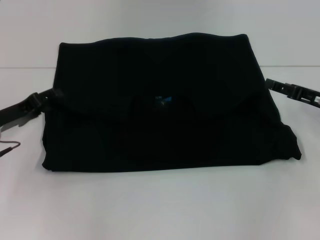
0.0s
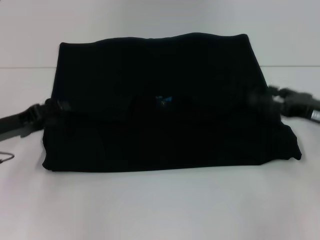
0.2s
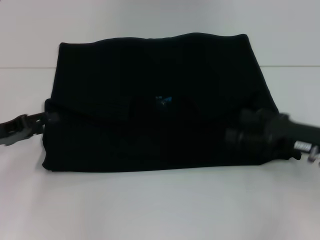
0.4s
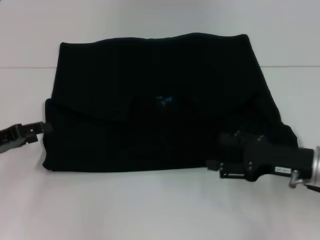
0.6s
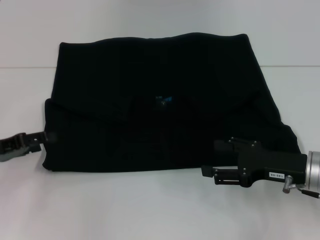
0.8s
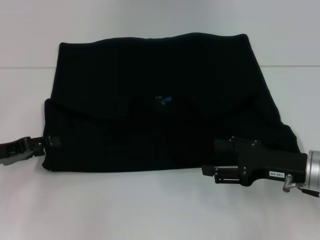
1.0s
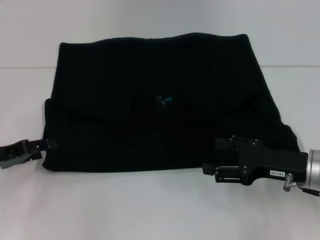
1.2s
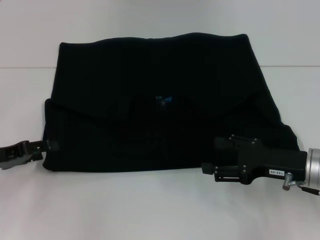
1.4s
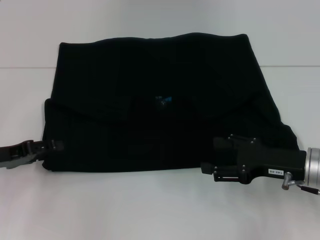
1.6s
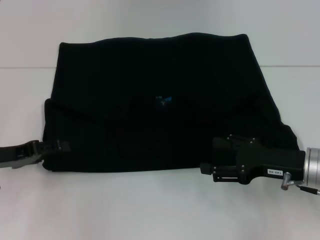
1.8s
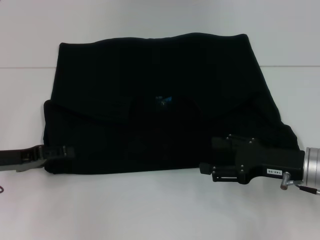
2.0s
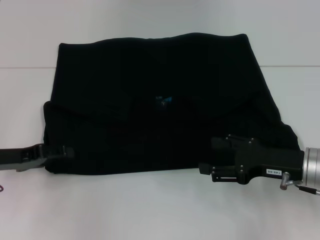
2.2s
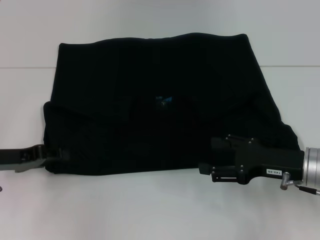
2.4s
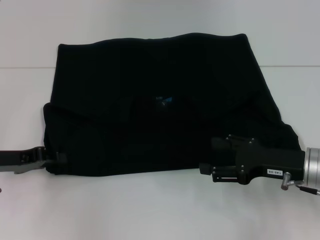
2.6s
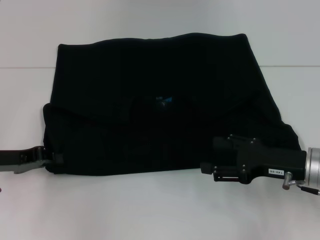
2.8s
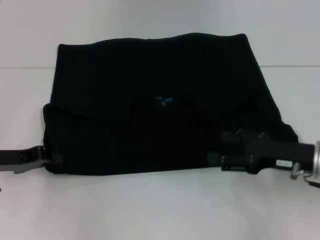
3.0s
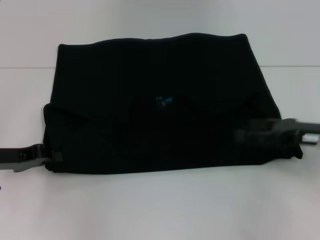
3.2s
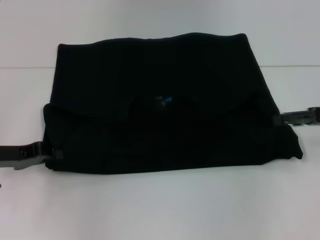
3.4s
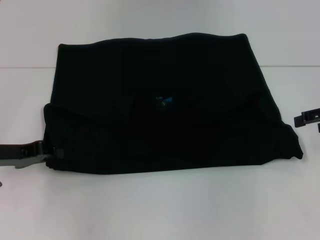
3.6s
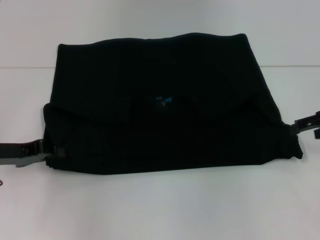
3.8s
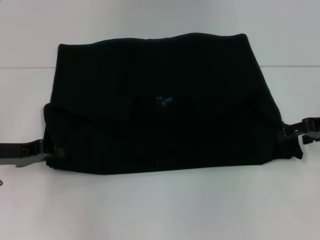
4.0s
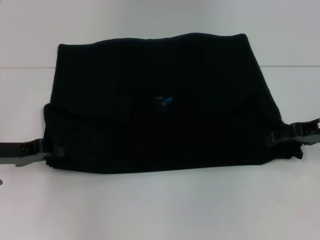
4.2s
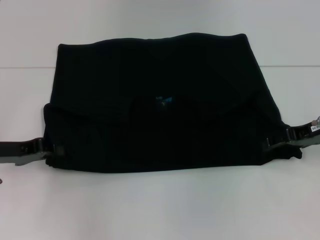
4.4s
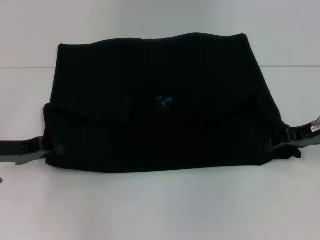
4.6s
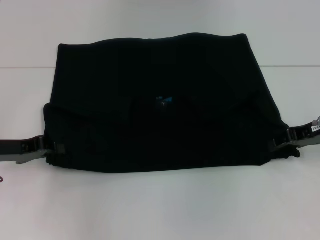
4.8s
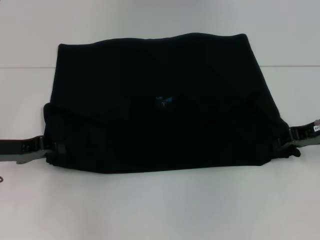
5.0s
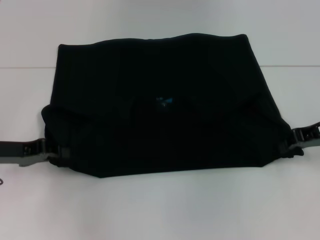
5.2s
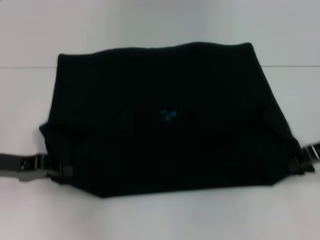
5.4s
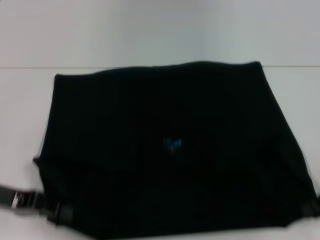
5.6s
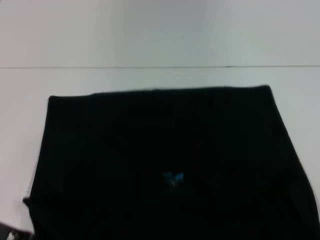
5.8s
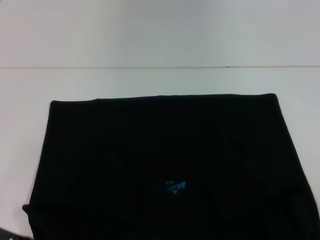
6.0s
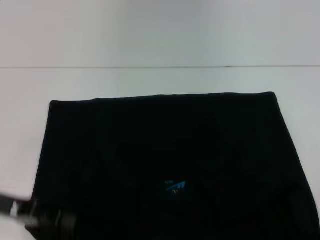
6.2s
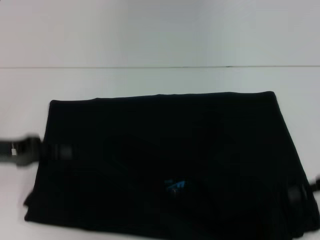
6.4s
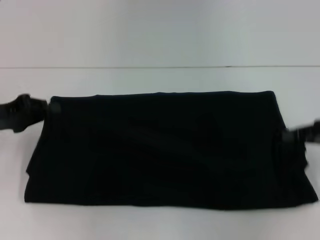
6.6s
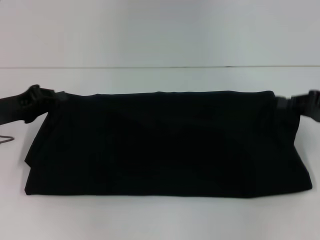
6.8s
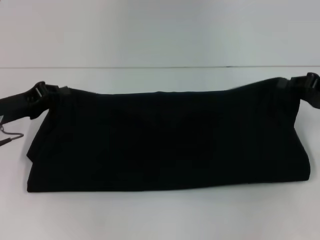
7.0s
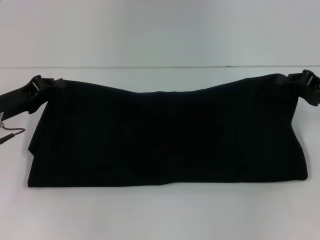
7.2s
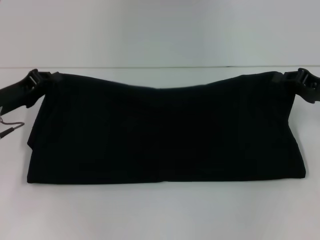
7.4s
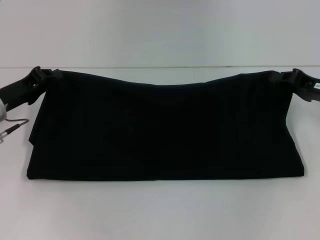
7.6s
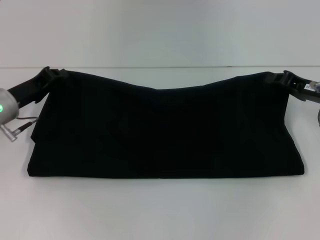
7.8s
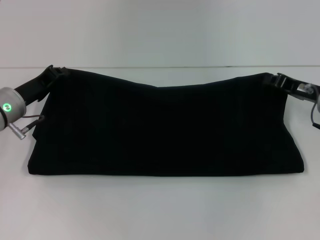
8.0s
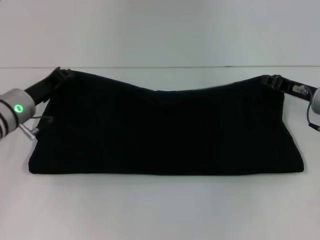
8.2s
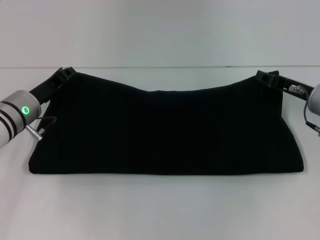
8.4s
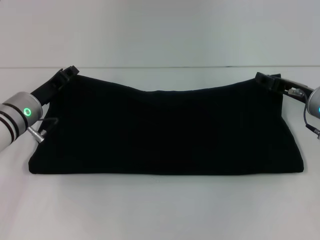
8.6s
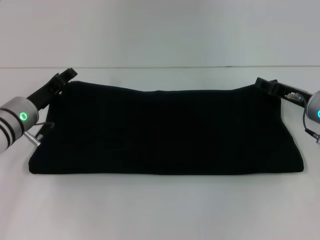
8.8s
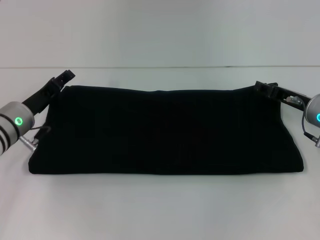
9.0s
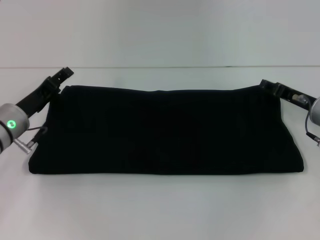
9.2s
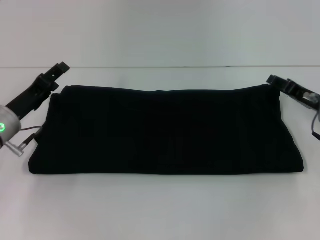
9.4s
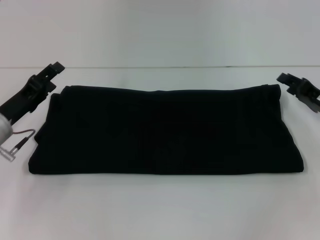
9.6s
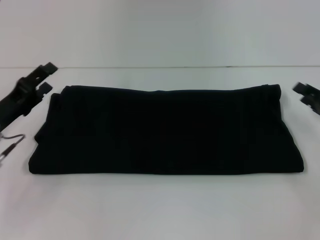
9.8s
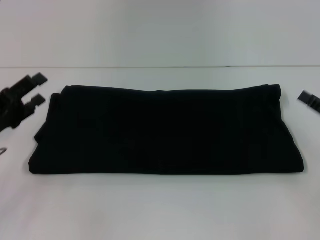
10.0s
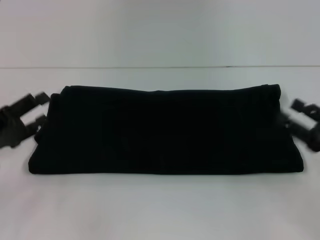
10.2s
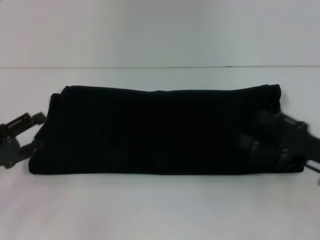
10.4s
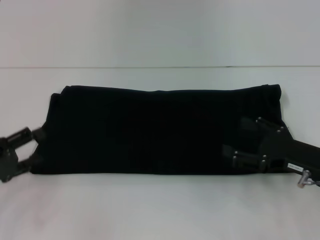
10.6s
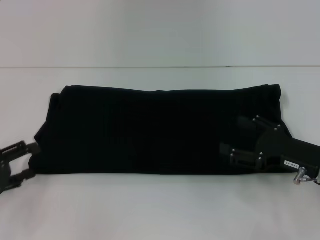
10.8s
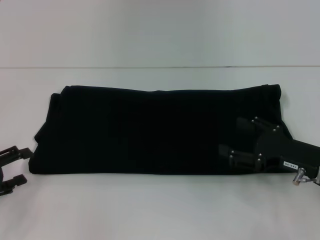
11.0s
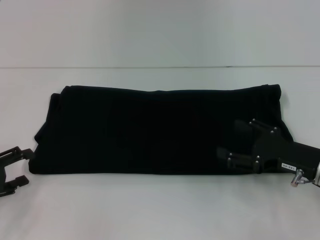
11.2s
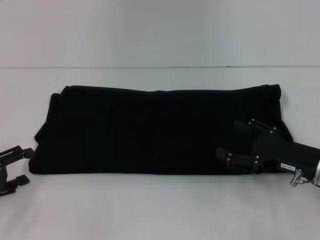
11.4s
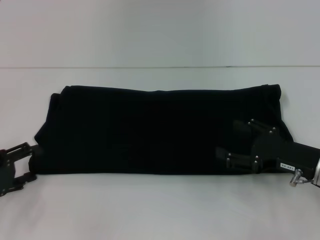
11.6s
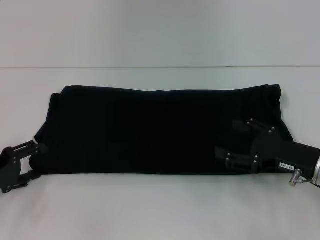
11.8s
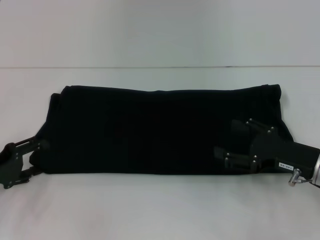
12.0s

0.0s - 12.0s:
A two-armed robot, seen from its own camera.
Step, 0.0s - 5.8s: Pull the clothes with your left hand.
Step, 0.0s - 5.8s: Pull the clothes with your right hand.
Step, 6.0s - 9.0s: Fold the clothes with your right hand.
0.0s - 1.6s: The left gripper ends up roughly 5 cm from where it was. Meanwhile the right gripper is displaced to the left and backward by about 10 cm.
1.6s - 3.0s: The left gripper closes up.
3.0s - 4.4s: The right gripper is displaced forward and upward by about 10 cm.
4.4s - 6.0s: The grippers both shift backward by about 10 cm. The right gripper closes up.
6.0s - 7.6s: Both grippers travel together forward, some 10 cm.
7.6s - 9.0s: The right gripper shifts by approximately 5 cm, and opens its fingers, while the left gripper shifts by roughly 5 cm, and opens.
9.0s - 10.4s: The left gripper goes roughly 15 cm backward and to the left, while the right gripper heads backward, covering about 10 cm.
10.4s - 12.0s: There are only small adjustments of the grippers.

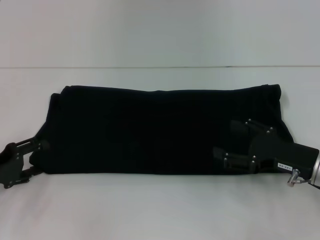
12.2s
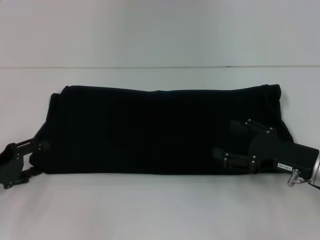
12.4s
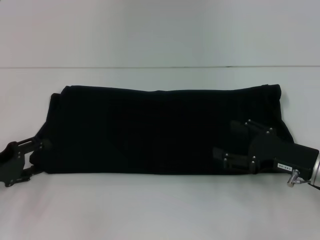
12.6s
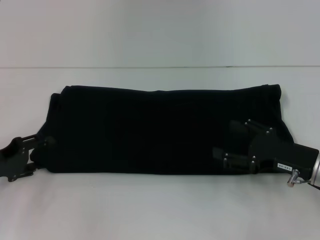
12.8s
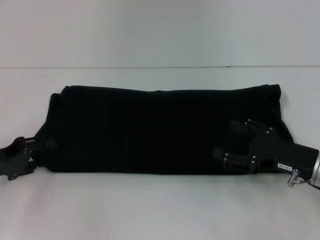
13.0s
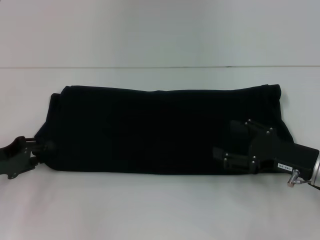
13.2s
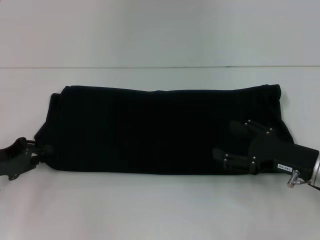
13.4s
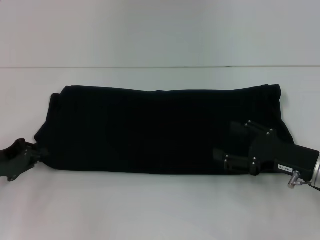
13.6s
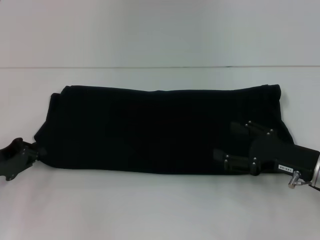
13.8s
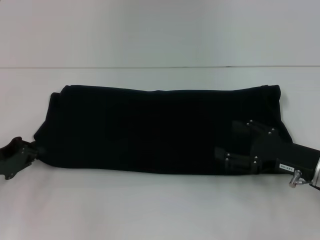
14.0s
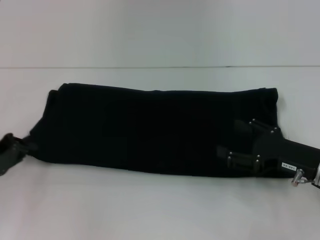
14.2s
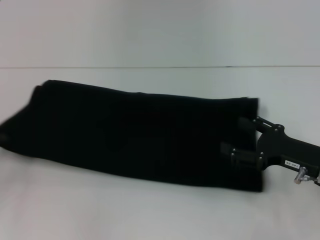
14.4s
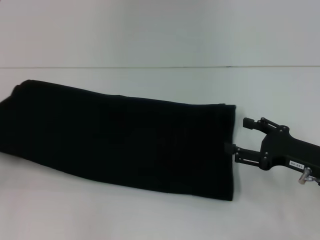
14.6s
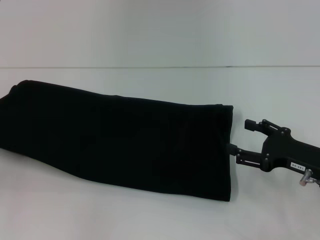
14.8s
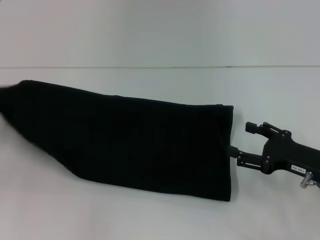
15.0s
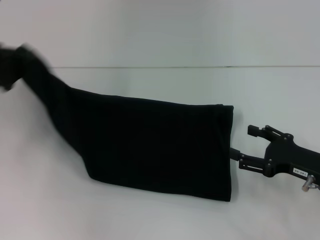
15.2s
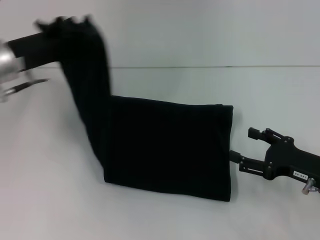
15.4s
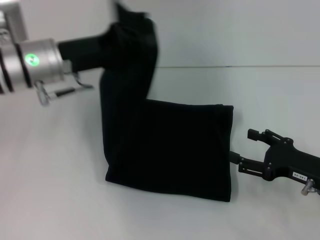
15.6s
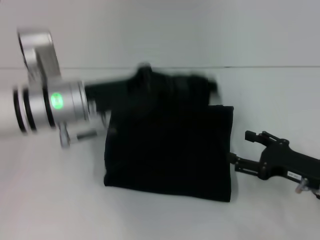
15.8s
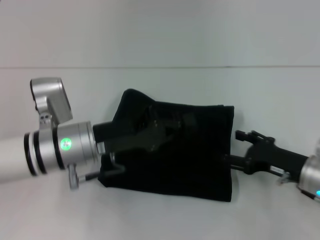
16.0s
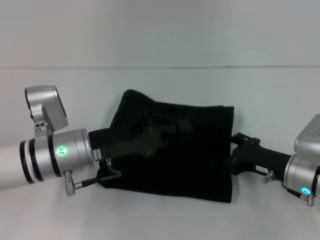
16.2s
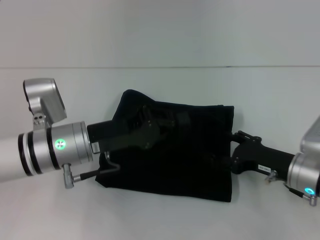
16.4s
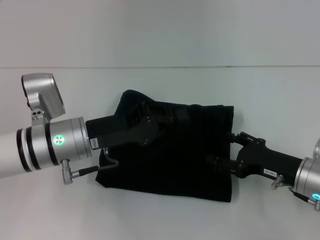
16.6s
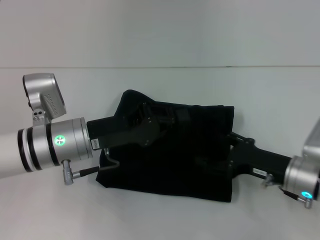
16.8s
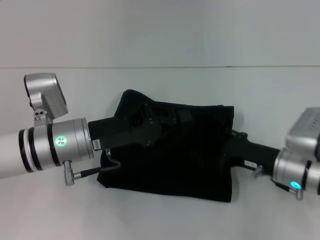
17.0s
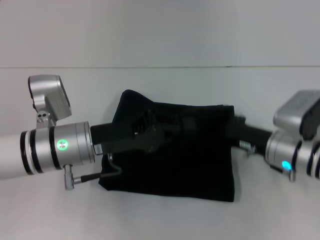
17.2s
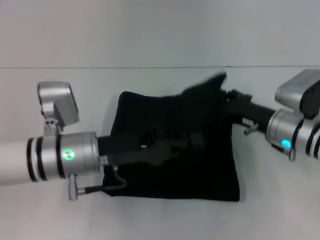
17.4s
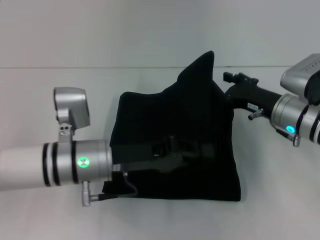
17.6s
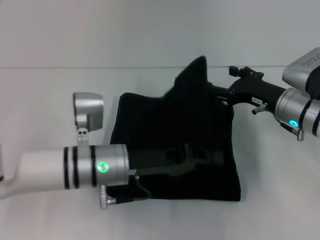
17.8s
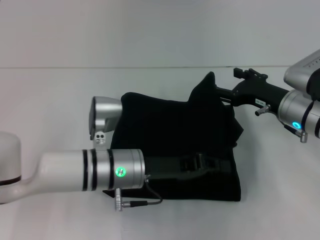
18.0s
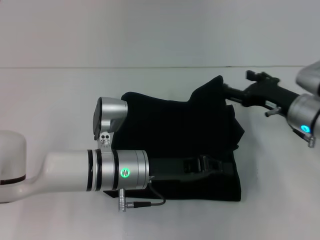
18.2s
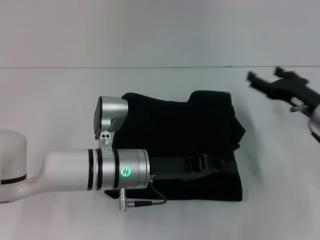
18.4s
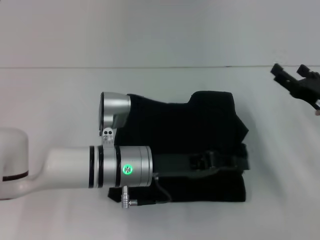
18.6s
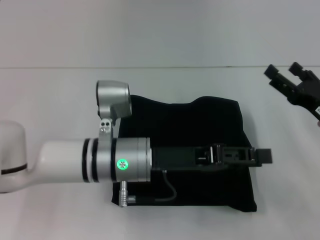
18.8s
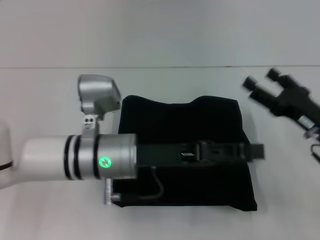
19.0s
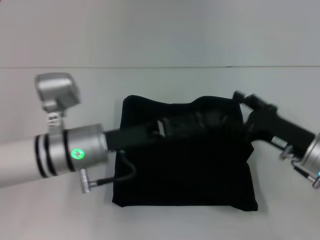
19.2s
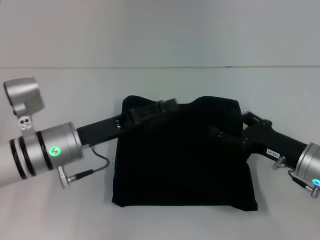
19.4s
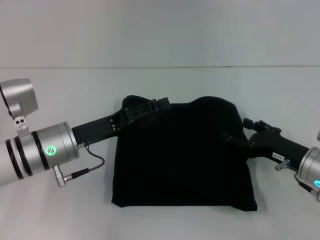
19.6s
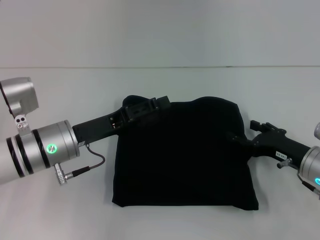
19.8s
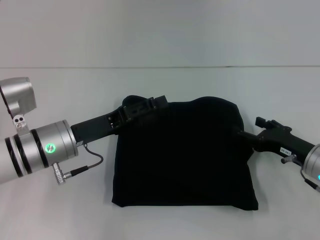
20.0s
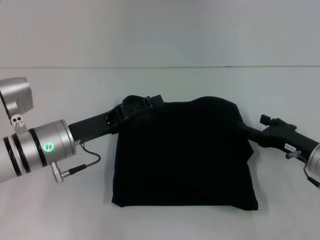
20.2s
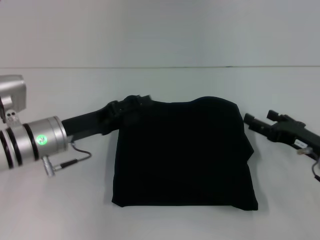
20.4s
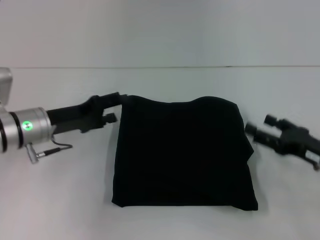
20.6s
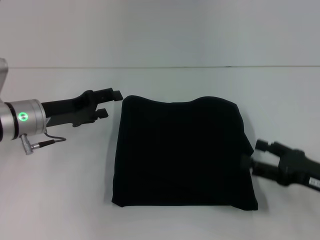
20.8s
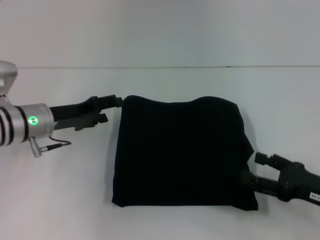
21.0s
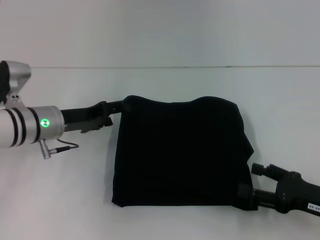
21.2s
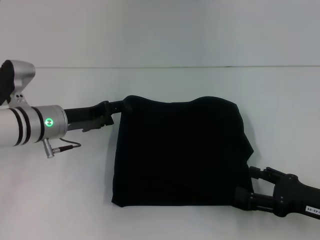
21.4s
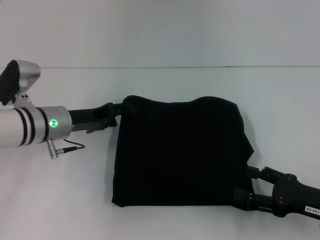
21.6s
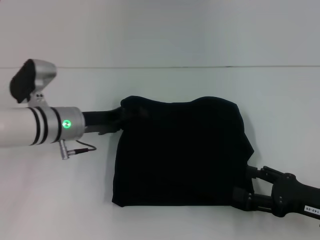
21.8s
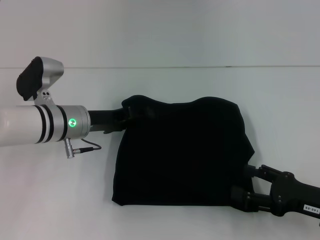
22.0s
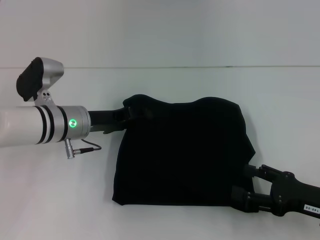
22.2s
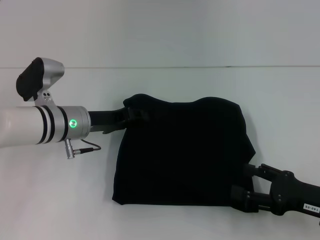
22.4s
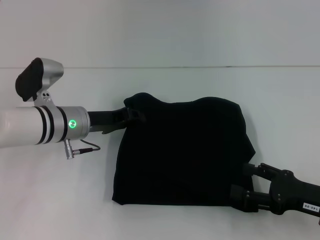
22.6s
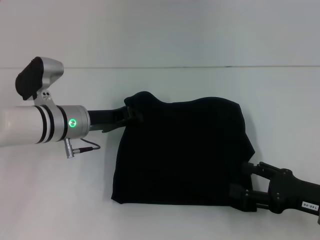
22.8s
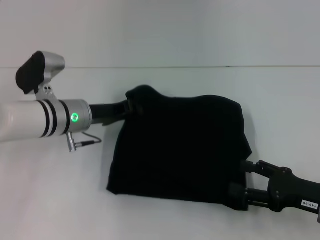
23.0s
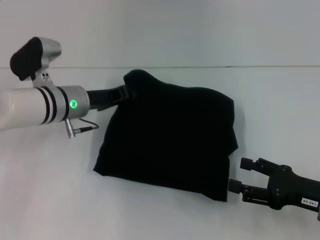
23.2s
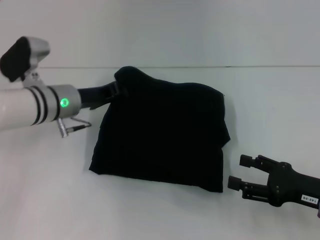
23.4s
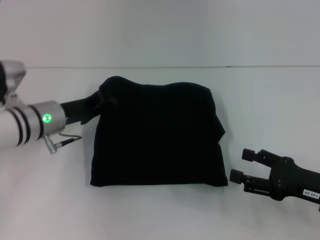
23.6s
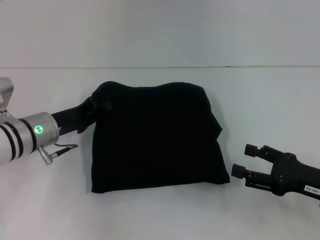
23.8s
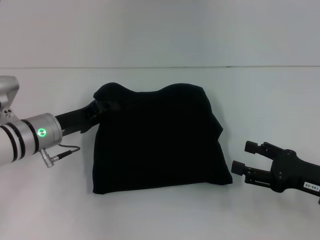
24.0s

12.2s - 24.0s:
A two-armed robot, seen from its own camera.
Step, 12.2s - 18.6s: Fold the clothes with your left hand.
12.2s - 13.6s: The left gripper closes up.
13.6s - 15.2s: The left gripper travels upward and forward by about 10 cm.
15.2s - 16.6s: The left gripper goes approximately 15 cm to the right.
16.6s - 18.2s: The left gripper shifts some 10 cm to the right, while the right gripper heads forward, covering some 10 cm.
18.2s - 19.6s: The right gripper travels backward by some 5 cm; the left gripper goes roughly 10 cm to the left, and opens its fingers.
19.6s - 21.0s: The left gripper moves forward and to the left, about 5 cm, while the right gripper goes about 5 cm backward.
21.0s - 22.6s: The left gripper shifts roughly 5 cm to the right, and closes its fingers.
22.6s - 24.0s: The left gripper ends up some 5 cm from where it was, and closes.
